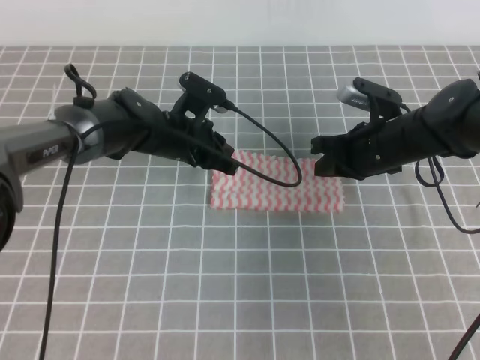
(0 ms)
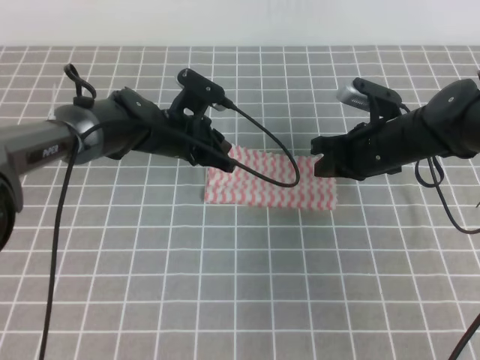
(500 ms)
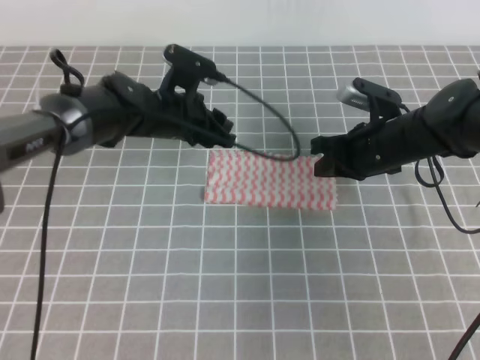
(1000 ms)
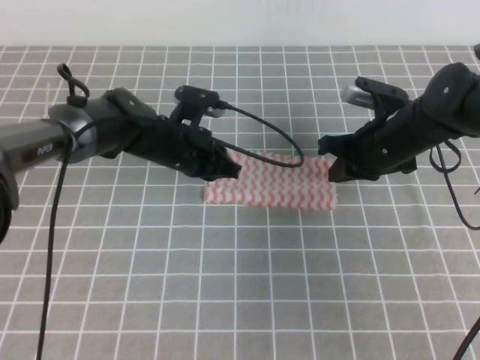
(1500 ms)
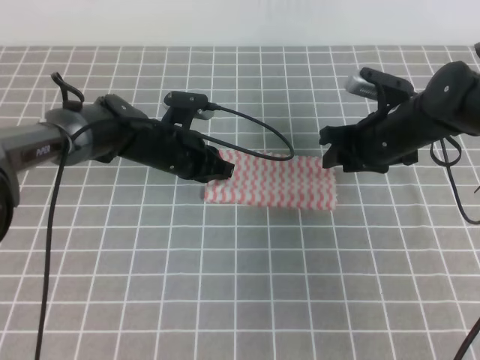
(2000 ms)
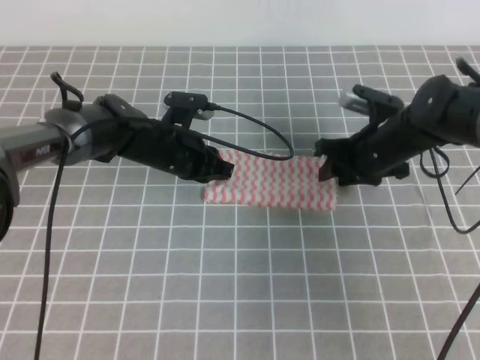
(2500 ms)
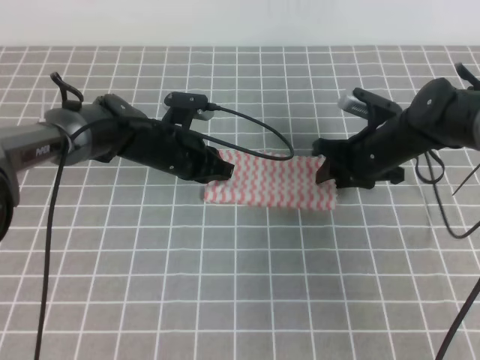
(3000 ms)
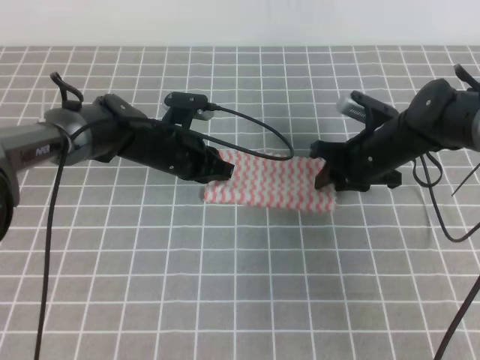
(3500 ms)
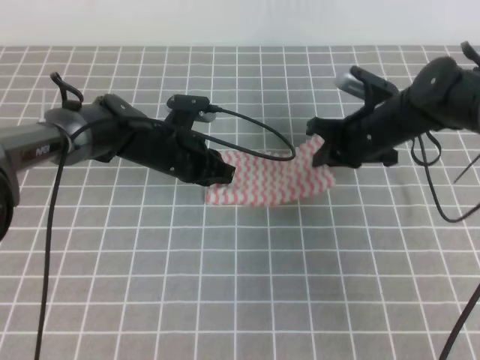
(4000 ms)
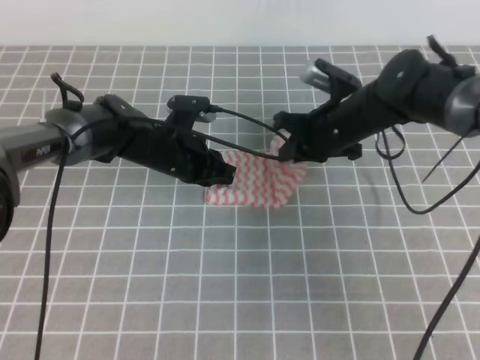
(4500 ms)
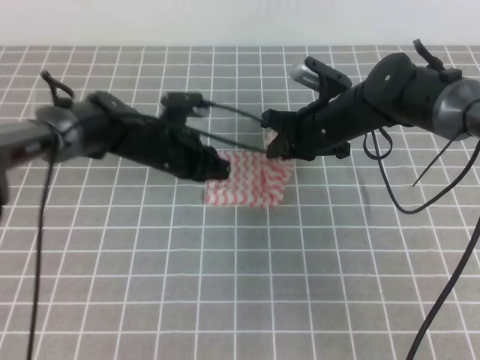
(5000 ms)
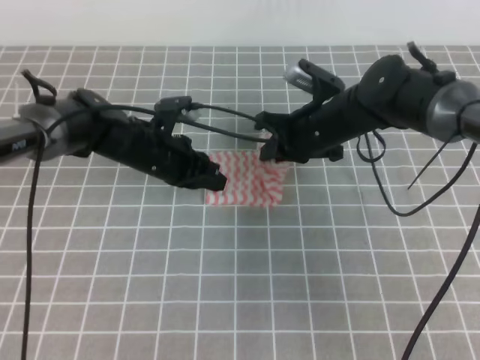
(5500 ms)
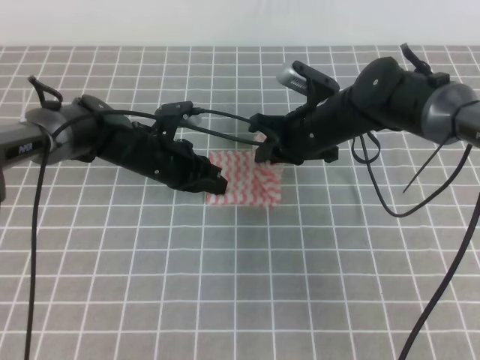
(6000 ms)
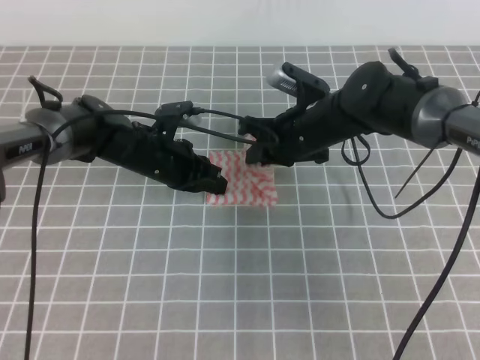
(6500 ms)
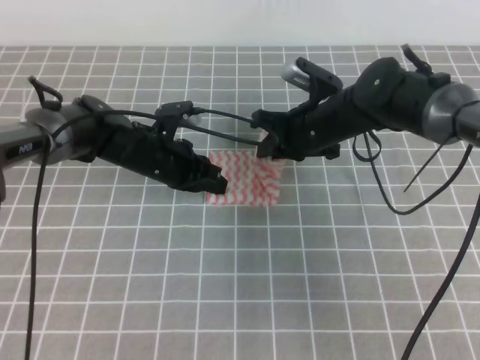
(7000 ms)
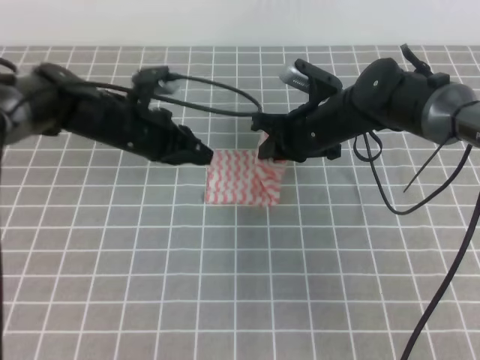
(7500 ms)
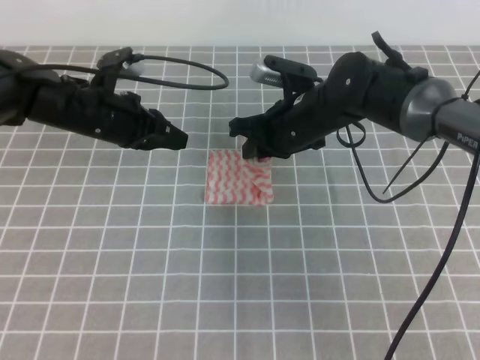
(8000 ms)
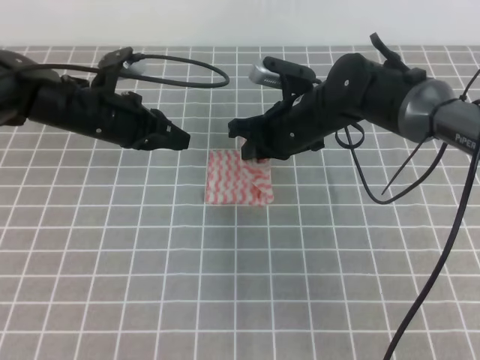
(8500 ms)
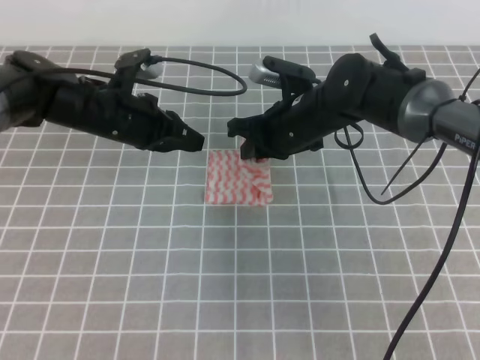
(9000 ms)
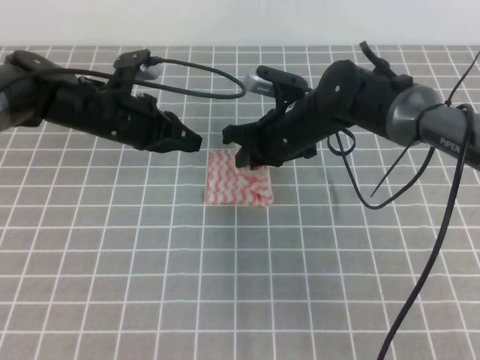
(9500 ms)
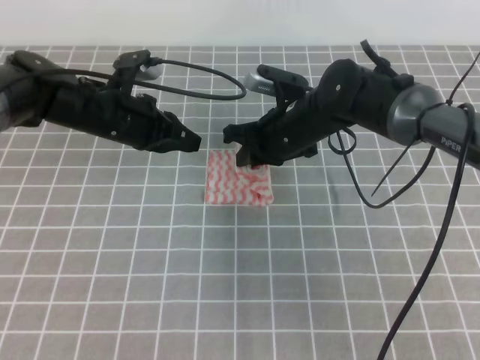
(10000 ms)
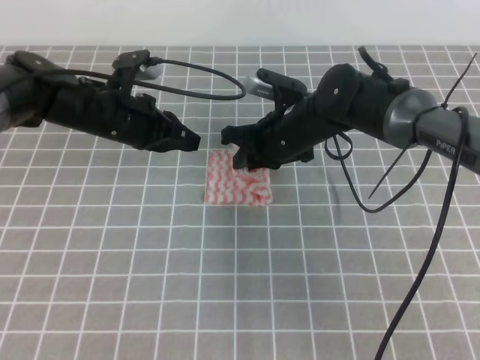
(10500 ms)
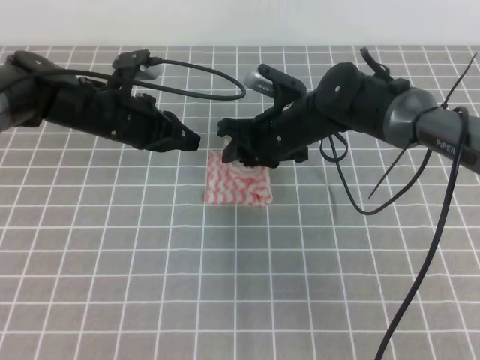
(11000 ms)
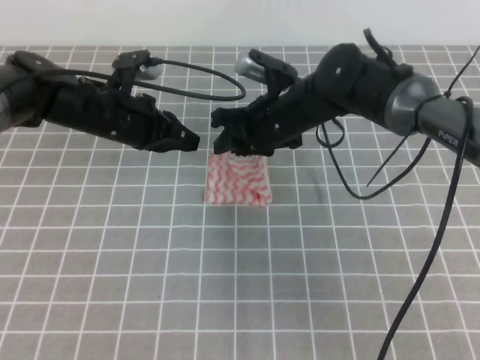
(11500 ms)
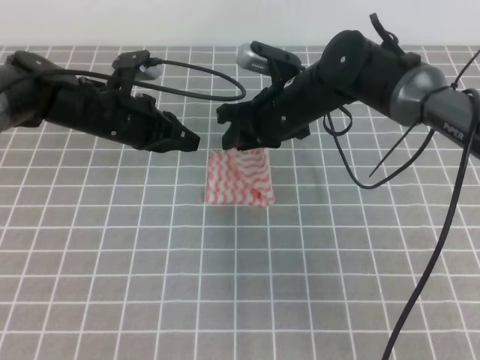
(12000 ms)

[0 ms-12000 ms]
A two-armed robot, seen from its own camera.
0 ms to 2000 ms: The left gripper opens and closes again, while the right gripper opens its fingers.
2000 ms to 4000 ms: The right gripper closes up.
4000 ms to 6000 ms: The right gripper travels to the left by roughly 5 cm.
6000 ms to 8000 ms: The left gripper goes approximately 10 cm upward and to the left.
8000 ms to 10000 ms: The grippers move only a little.
10000 ms to 12000 ms: The right gripper opens up.

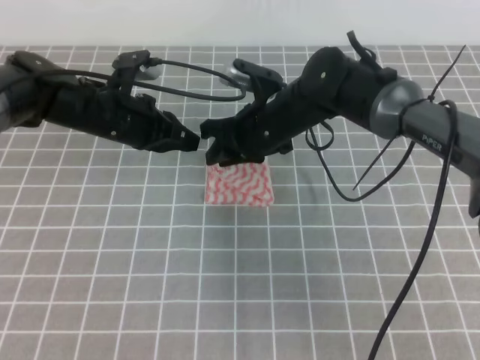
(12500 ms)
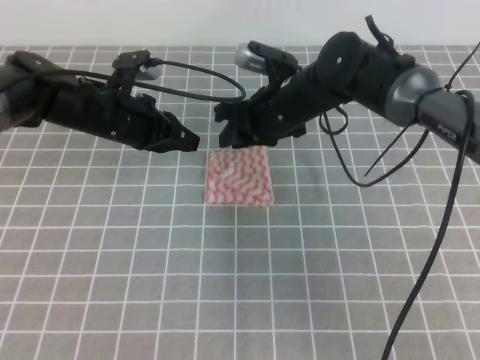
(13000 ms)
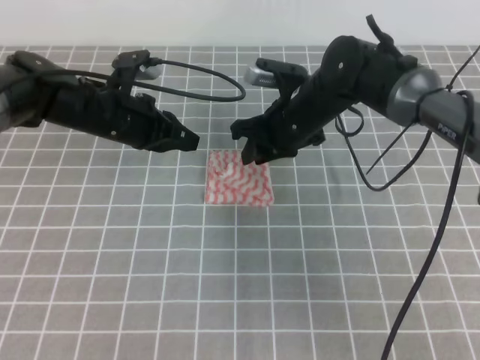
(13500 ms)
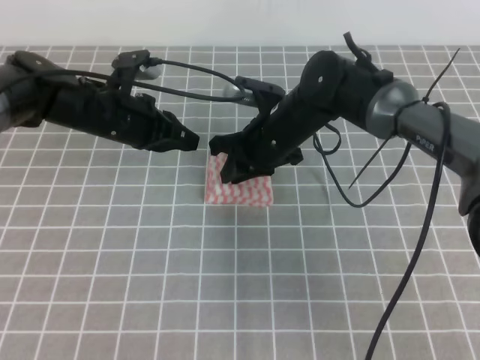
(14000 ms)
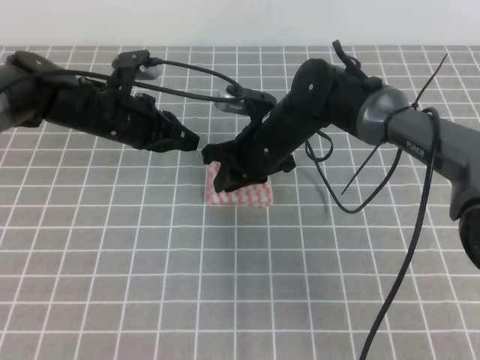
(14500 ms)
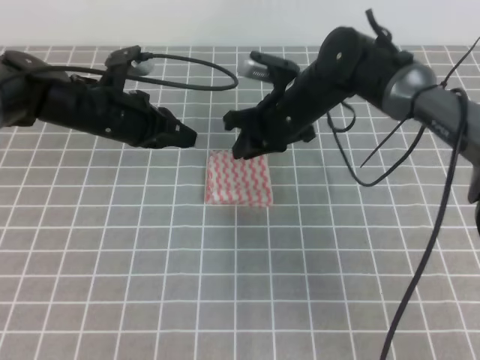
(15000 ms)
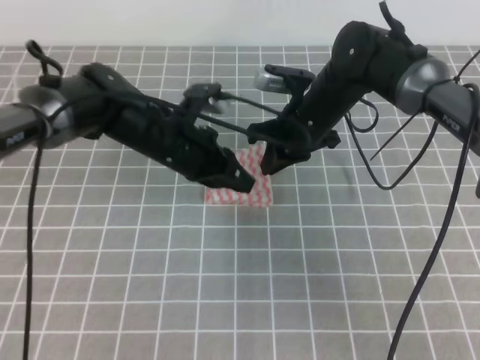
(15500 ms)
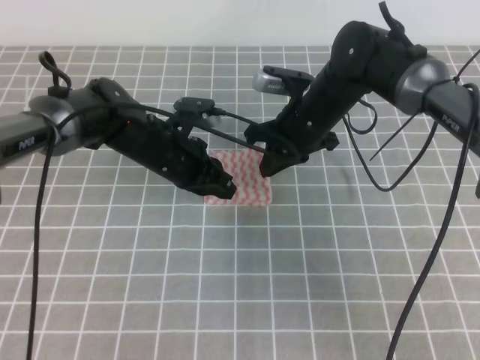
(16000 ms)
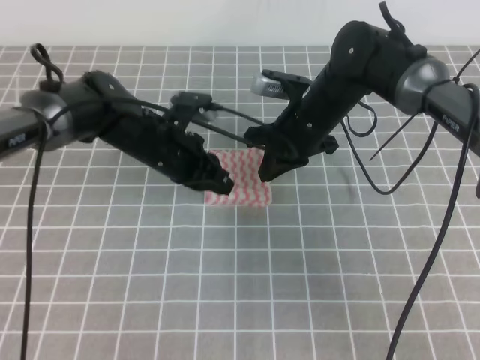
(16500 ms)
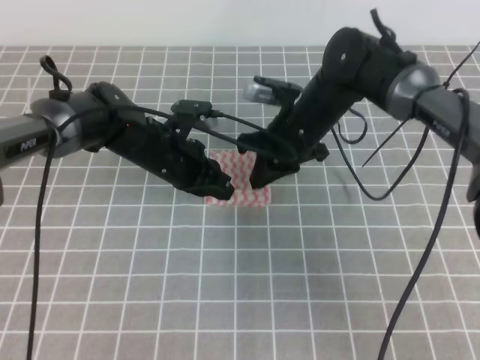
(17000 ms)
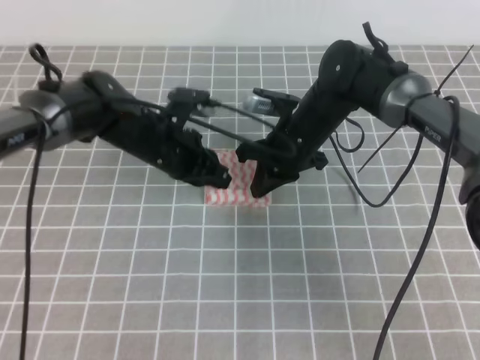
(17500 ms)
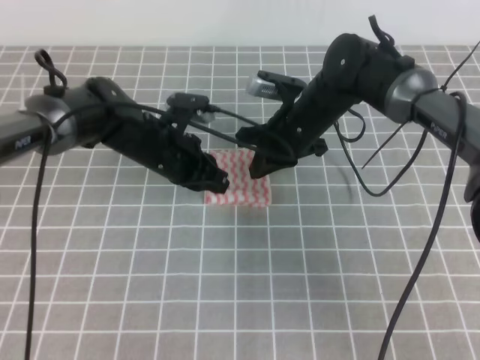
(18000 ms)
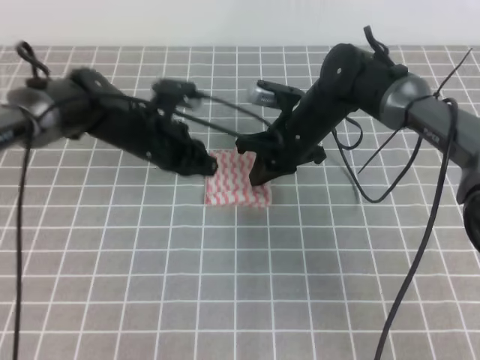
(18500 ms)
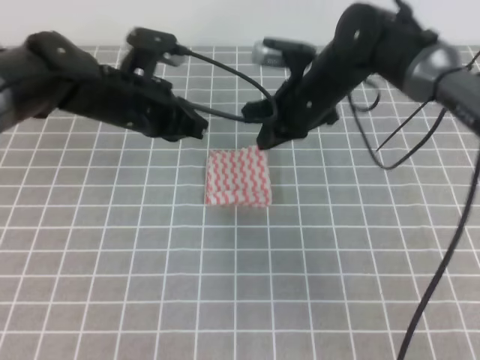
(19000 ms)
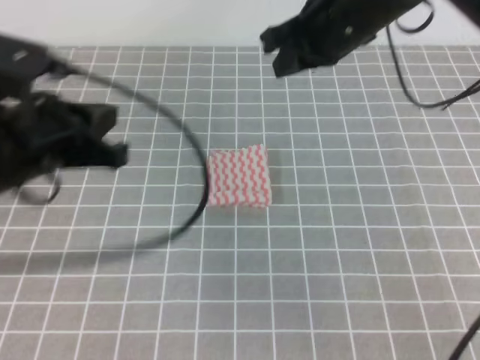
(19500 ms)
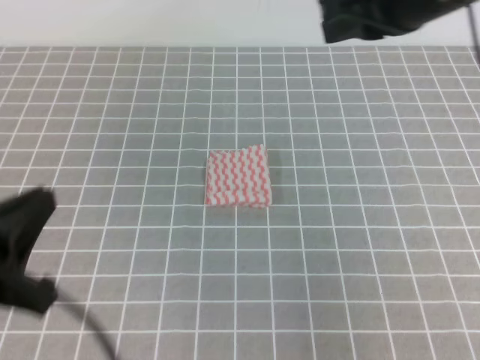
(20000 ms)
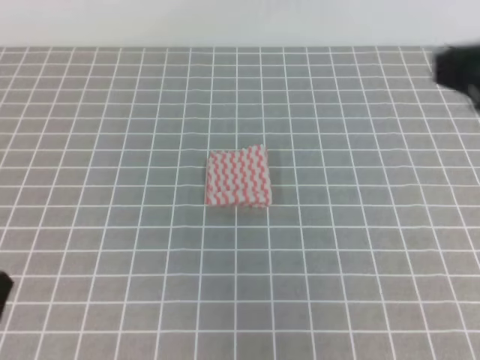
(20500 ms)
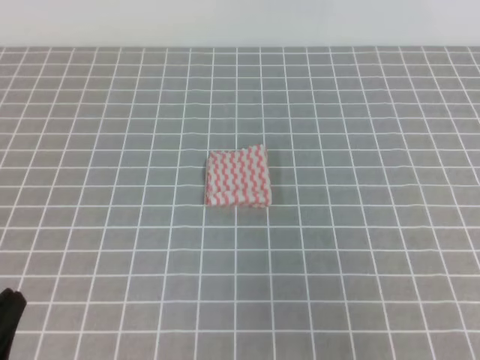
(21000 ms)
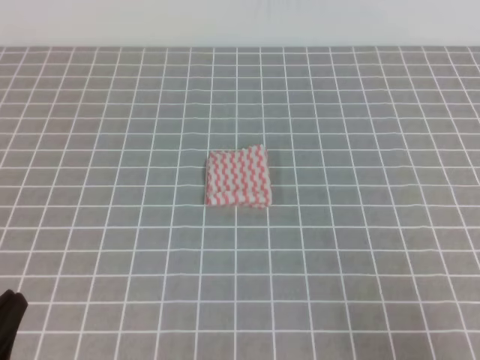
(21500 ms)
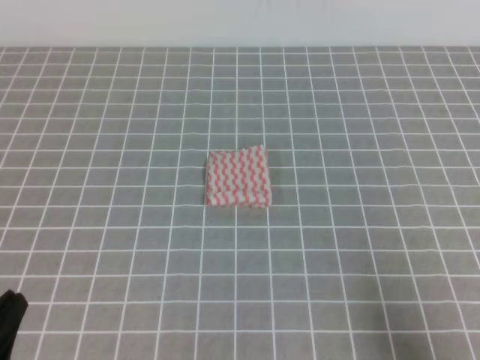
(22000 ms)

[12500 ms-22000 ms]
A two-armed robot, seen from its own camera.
12500 ms to 14500 ms: The grippers move only a little.
14500 ms to 16500 ms: Both grippers move to the right, roughly 5 cm.
16500 ms to 18000 ms: There are only small adjustments of the grippers.
18000 ms to 20000 ms: The left gripper travels backward, to the left and upward by some 35 cm. Meanwhile the right gripper moves upward and backward, about 25 cm.
20000 ms to 22000 ms: The right gripper heads backward, downward and to the right, covering about 35 cm, while the left gripper moves downward and backward, approximately 10 cm.
